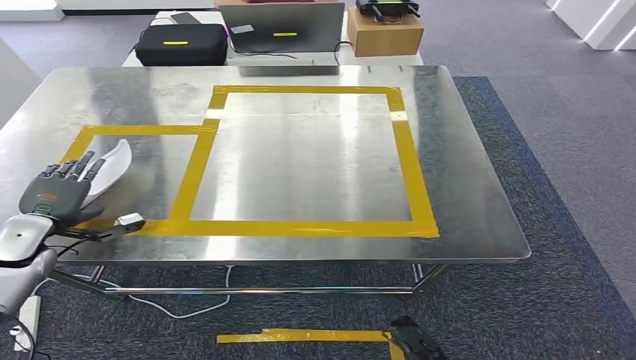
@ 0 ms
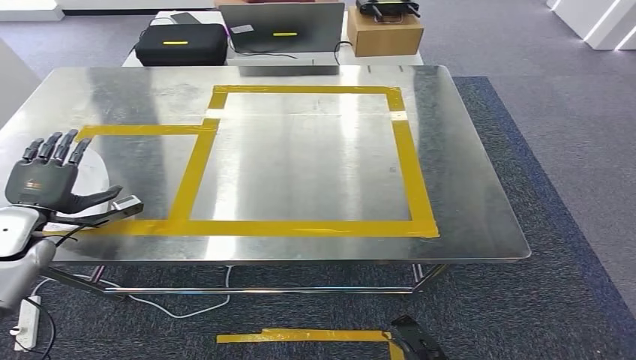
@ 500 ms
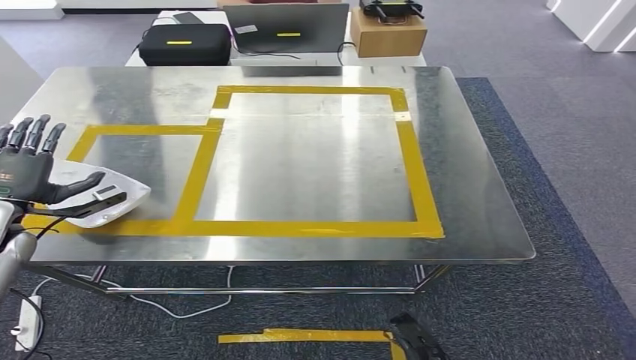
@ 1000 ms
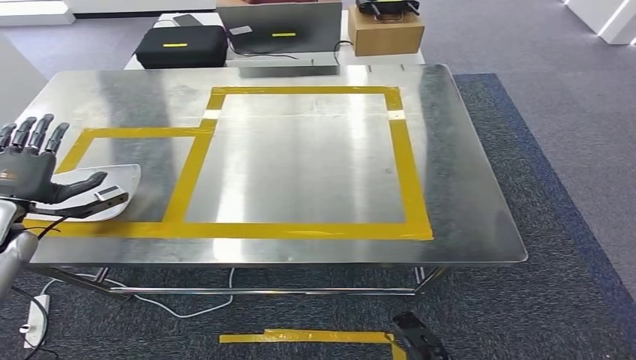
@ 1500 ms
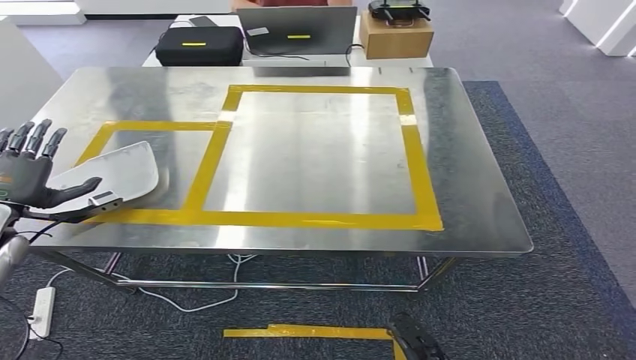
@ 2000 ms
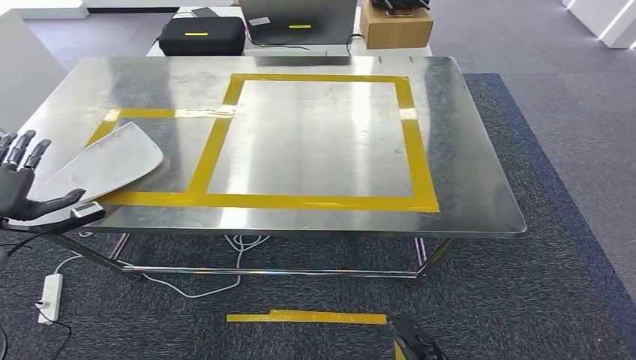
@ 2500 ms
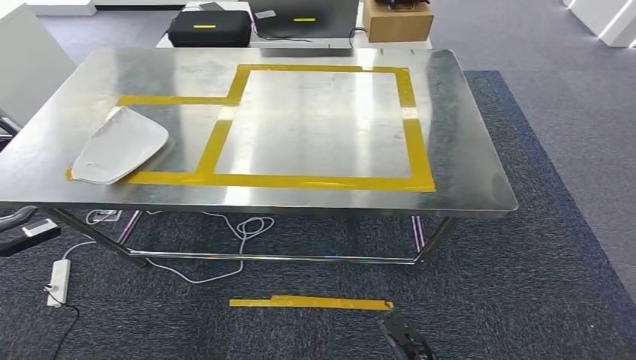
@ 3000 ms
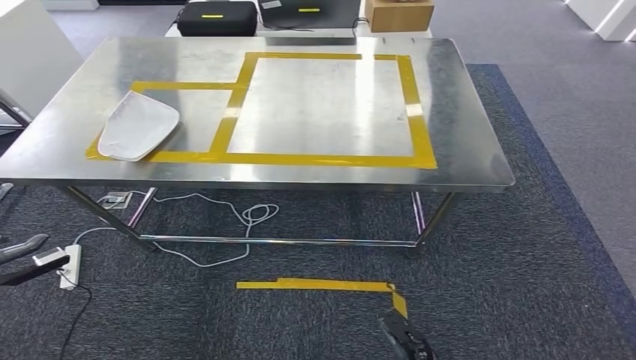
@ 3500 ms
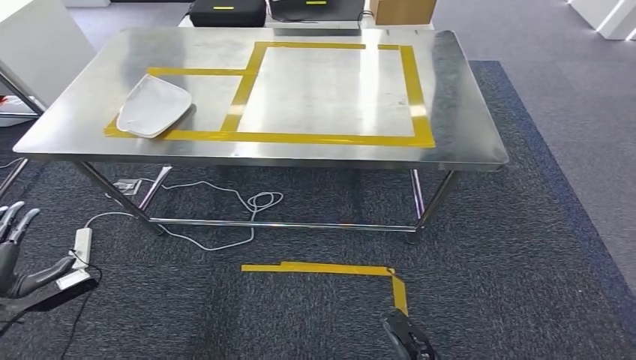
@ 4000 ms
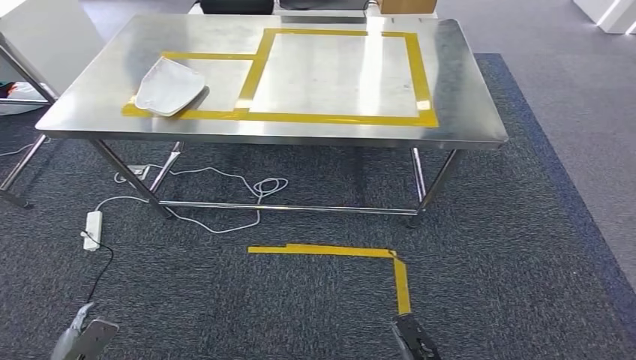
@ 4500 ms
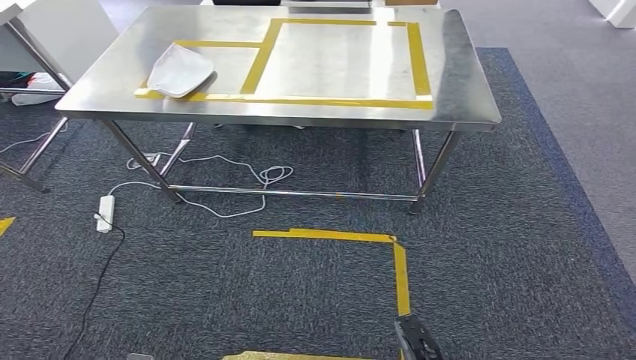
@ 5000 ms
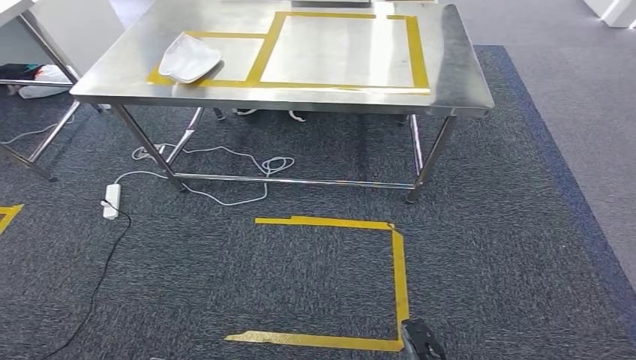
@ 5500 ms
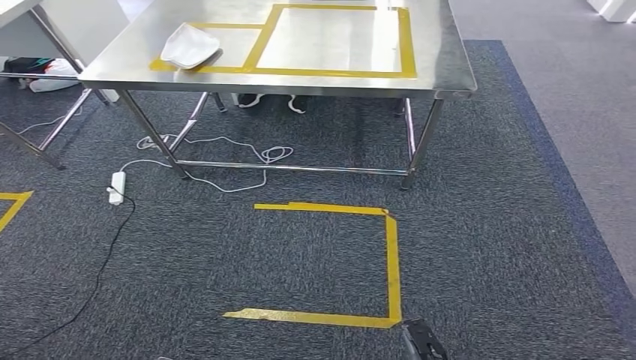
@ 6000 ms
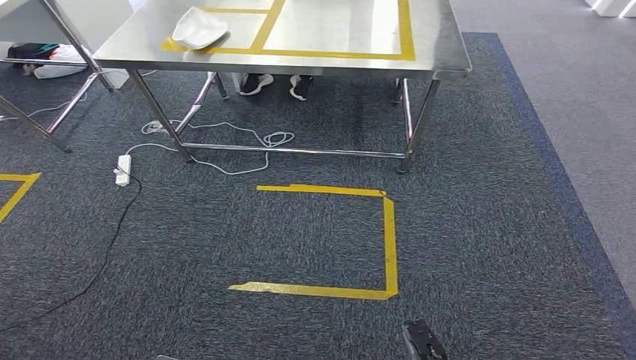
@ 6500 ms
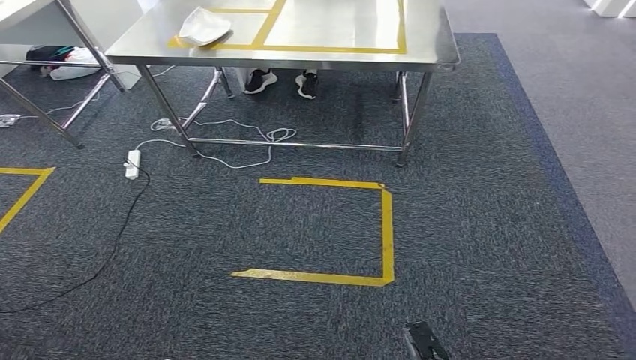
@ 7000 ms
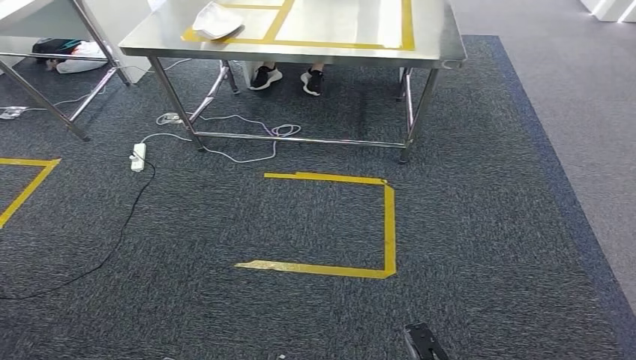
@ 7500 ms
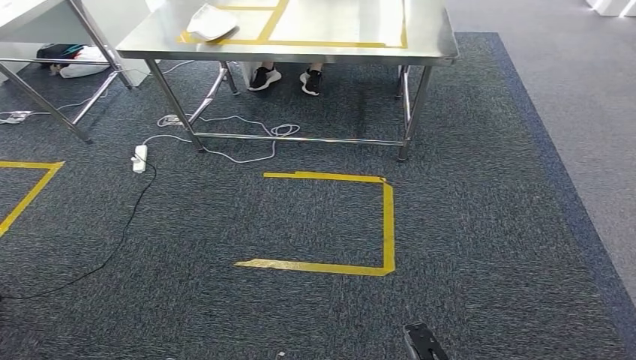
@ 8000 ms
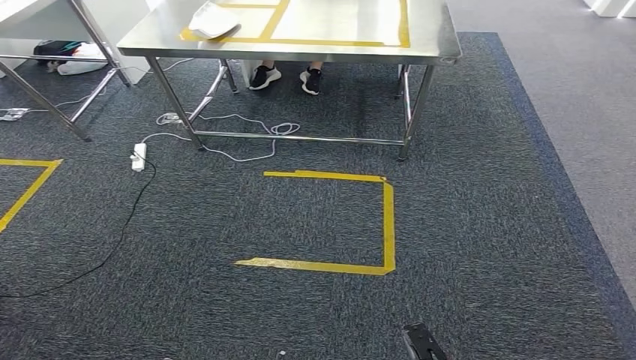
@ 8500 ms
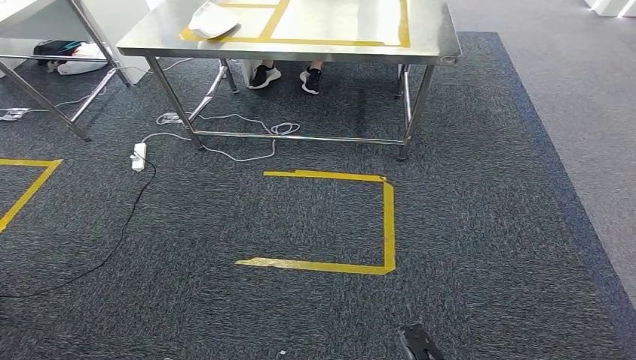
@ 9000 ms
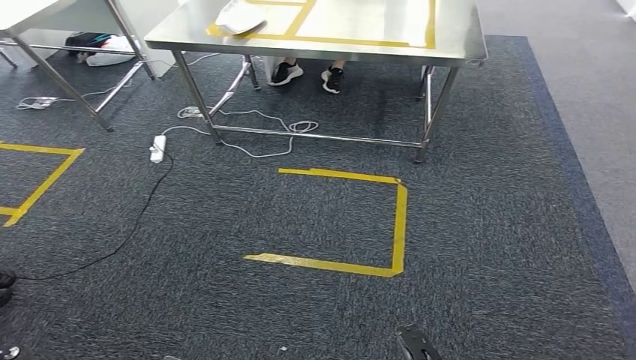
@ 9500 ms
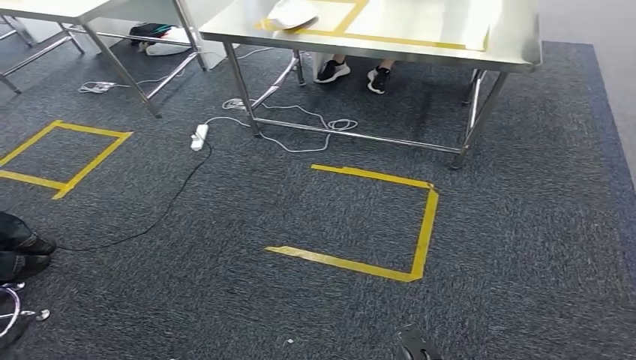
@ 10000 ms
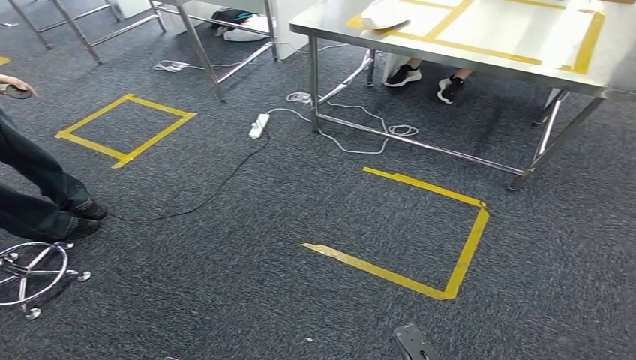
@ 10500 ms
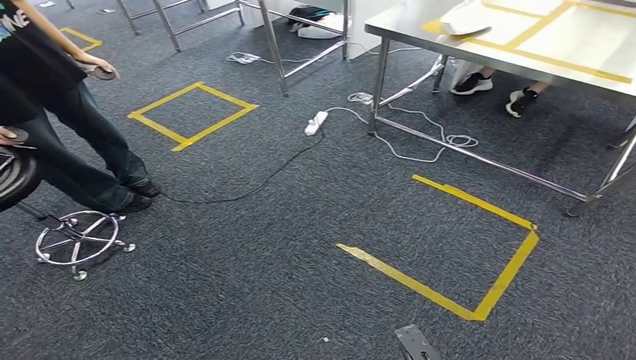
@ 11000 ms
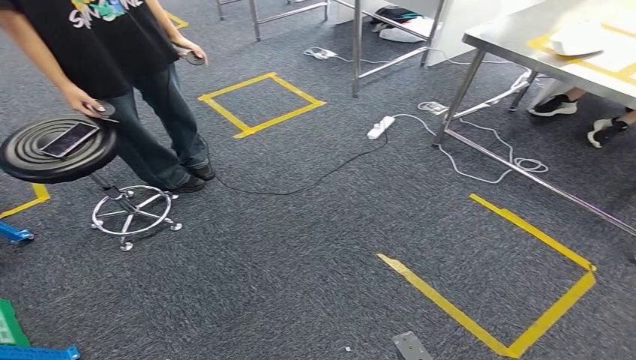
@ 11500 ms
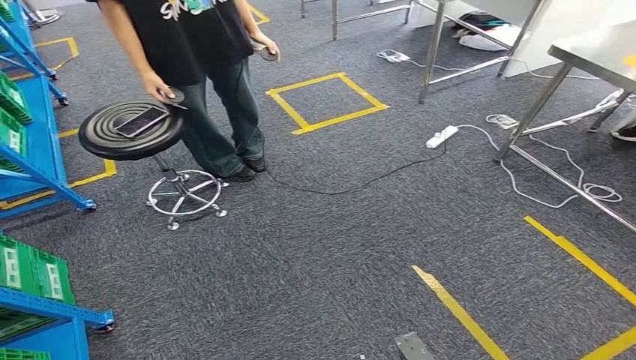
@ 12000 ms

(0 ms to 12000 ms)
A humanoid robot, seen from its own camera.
Step, 0 ms - 6000 ms: Insert the small component into the corresponding slot on the workbench.

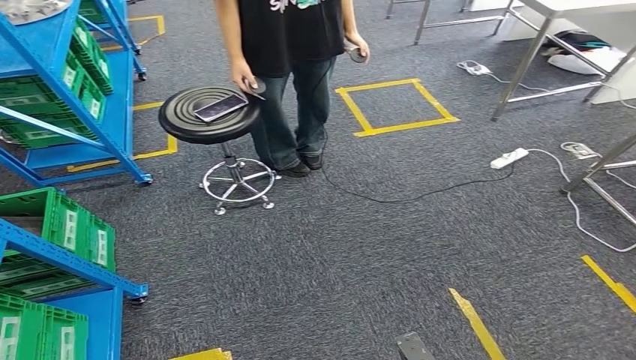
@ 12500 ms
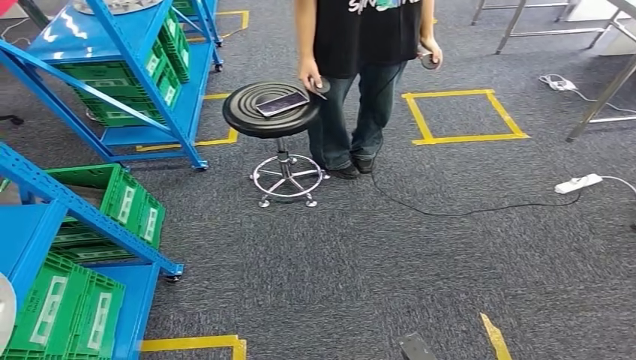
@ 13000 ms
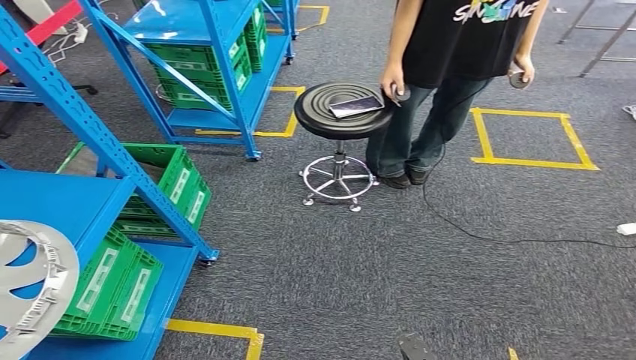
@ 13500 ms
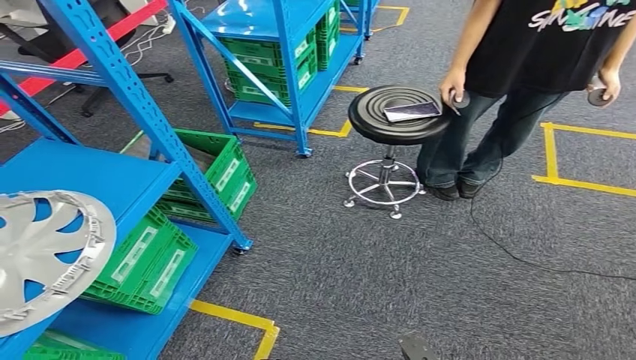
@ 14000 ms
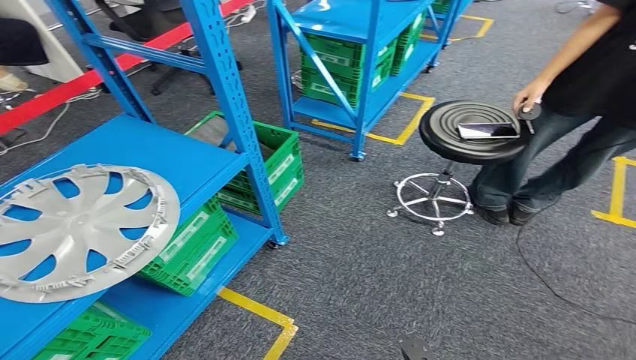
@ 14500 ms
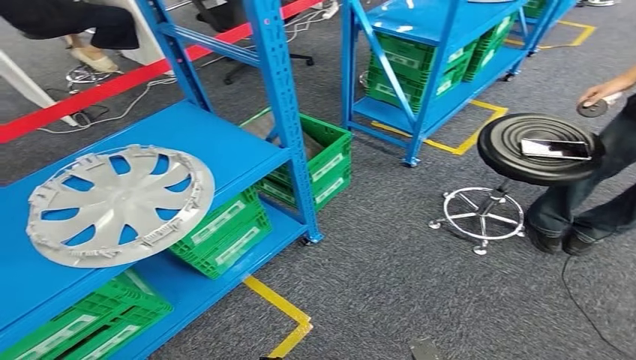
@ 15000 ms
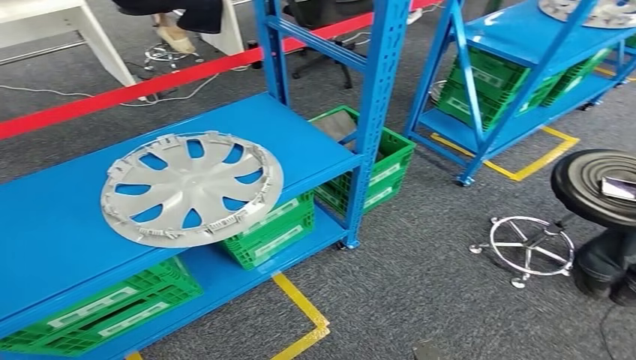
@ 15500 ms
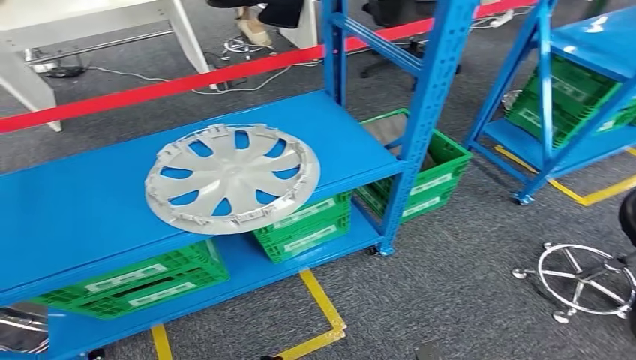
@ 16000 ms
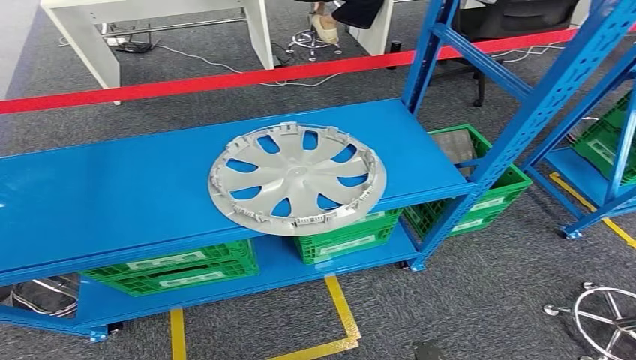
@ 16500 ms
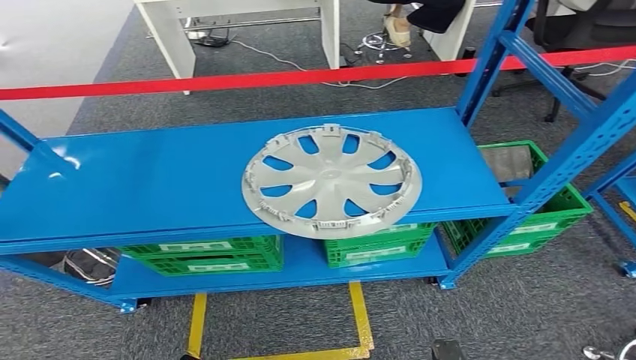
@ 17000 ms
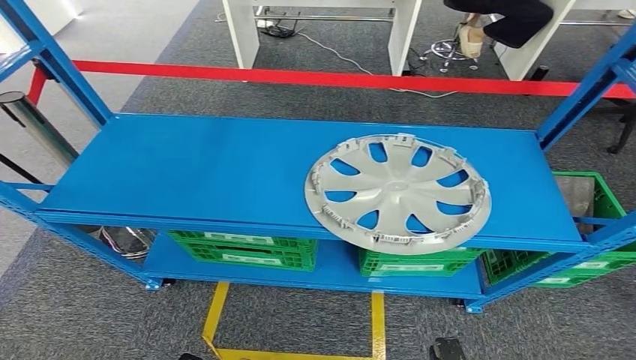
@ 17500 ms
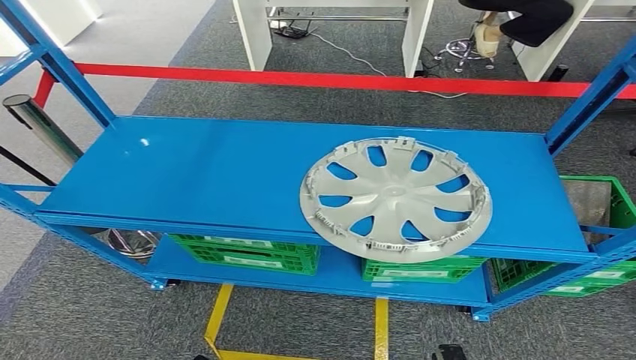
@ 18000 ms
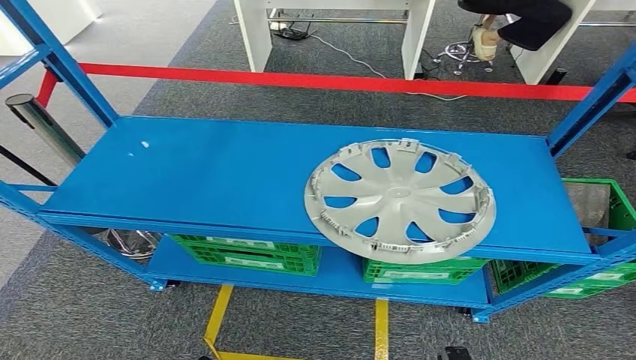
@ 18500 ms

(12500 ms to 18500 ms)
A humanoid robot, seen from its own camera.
Step, 12500 ms - 18500 ms: Move to the initial position of the workbench.
